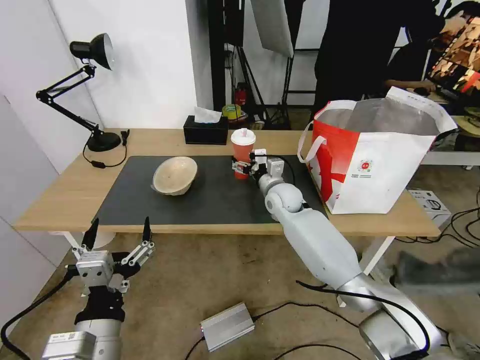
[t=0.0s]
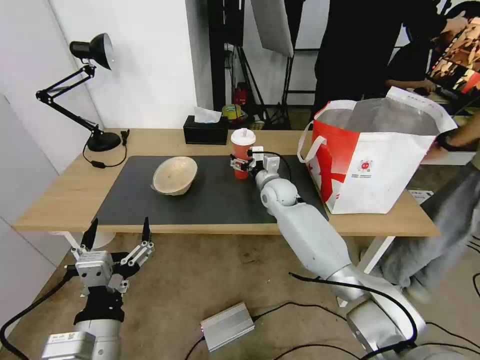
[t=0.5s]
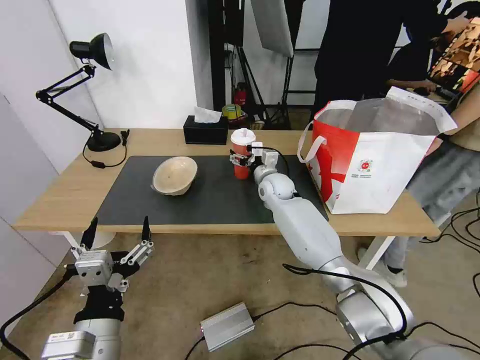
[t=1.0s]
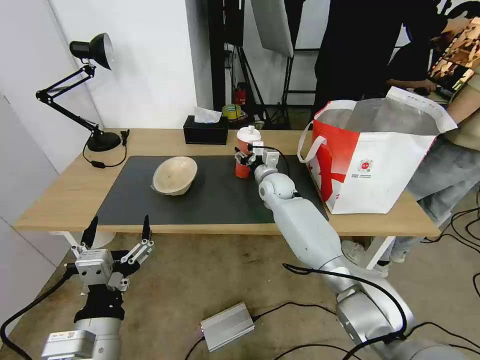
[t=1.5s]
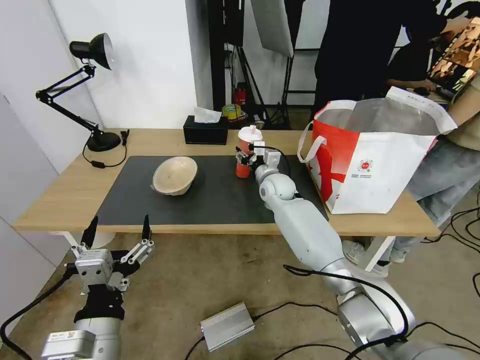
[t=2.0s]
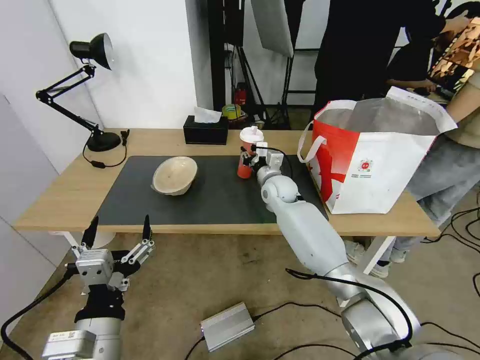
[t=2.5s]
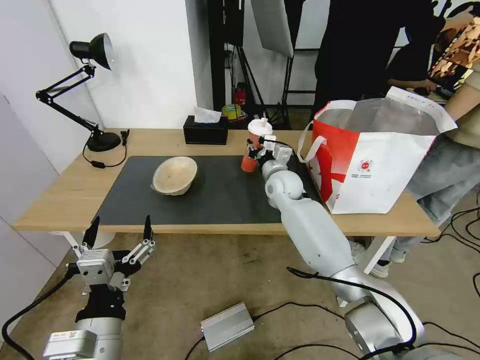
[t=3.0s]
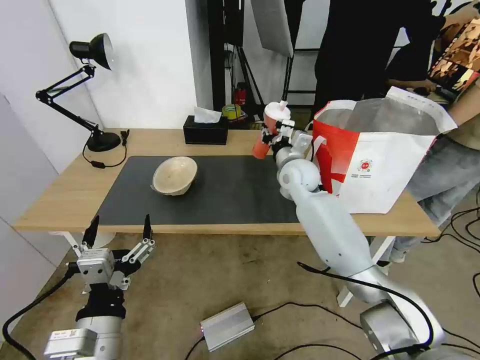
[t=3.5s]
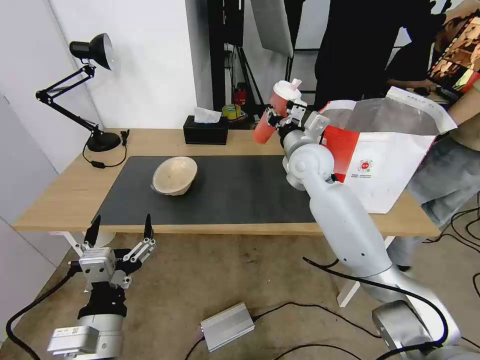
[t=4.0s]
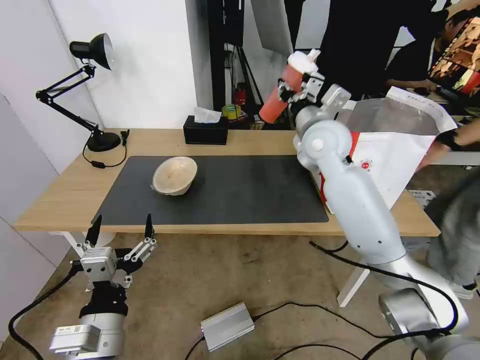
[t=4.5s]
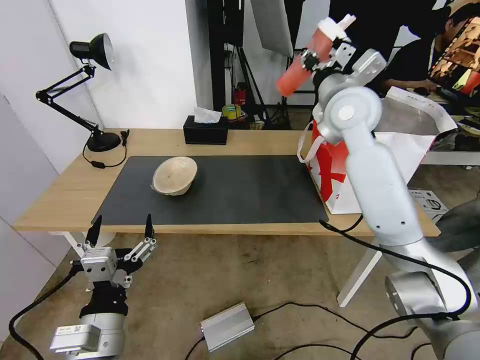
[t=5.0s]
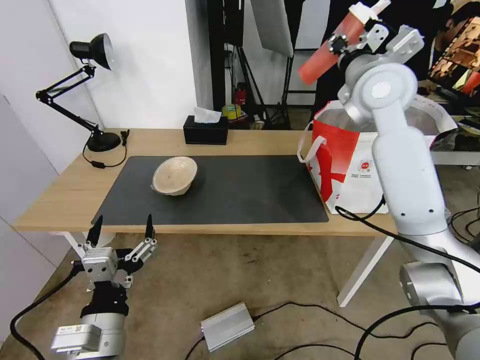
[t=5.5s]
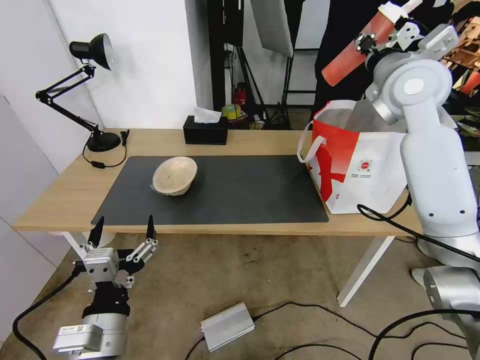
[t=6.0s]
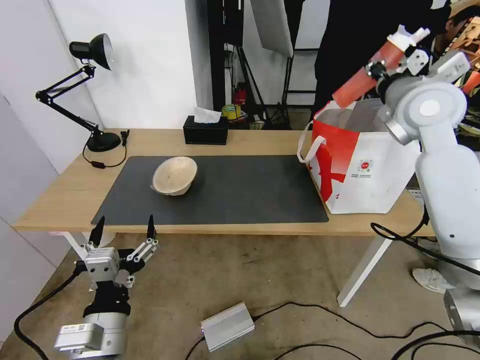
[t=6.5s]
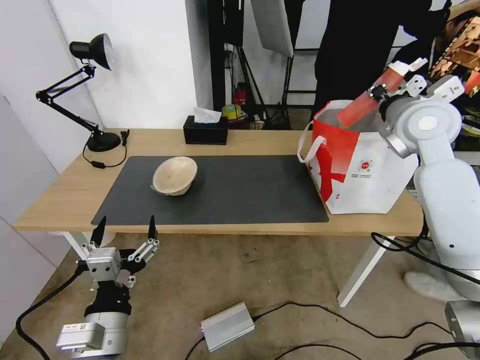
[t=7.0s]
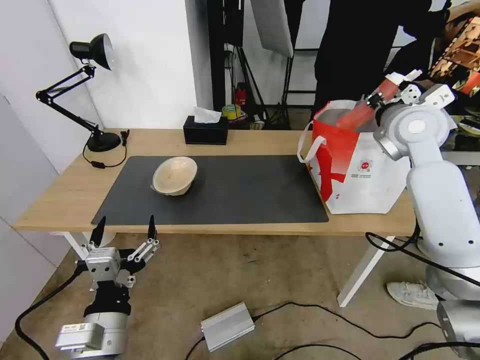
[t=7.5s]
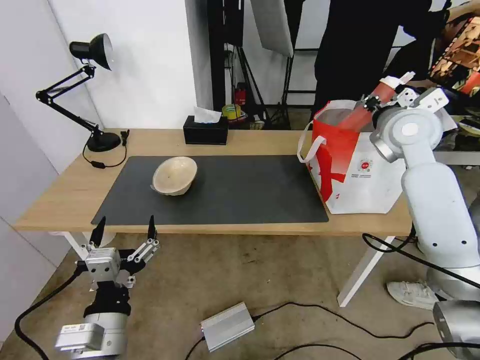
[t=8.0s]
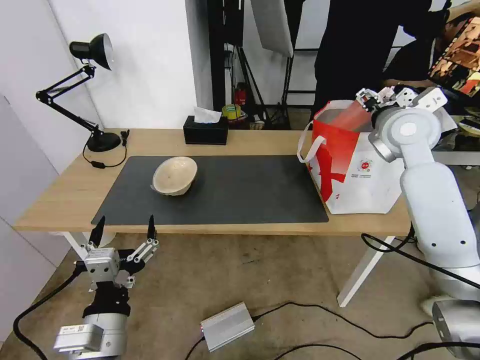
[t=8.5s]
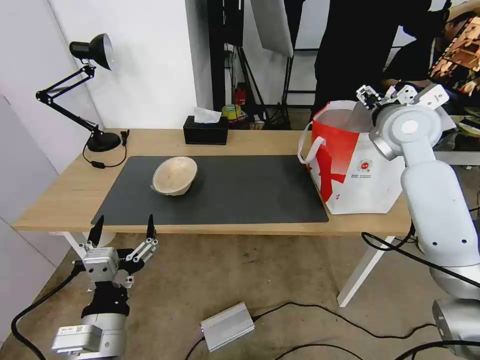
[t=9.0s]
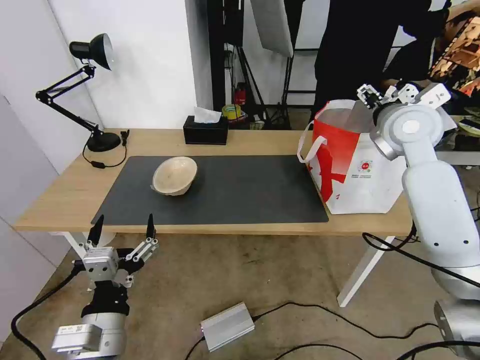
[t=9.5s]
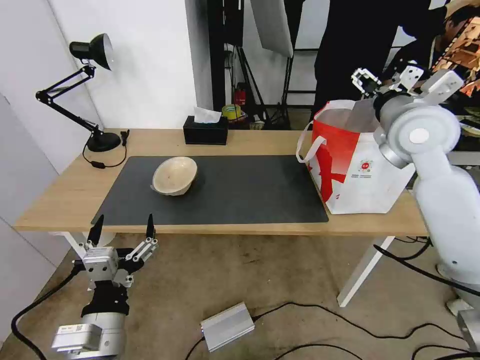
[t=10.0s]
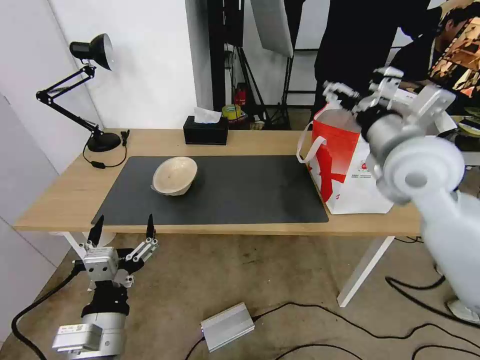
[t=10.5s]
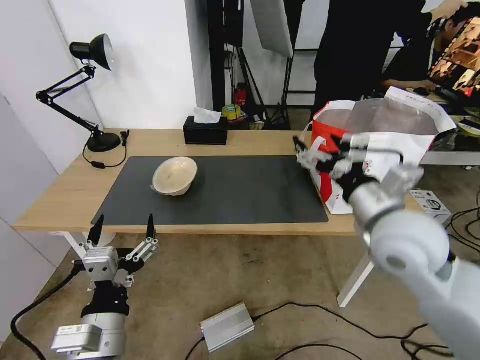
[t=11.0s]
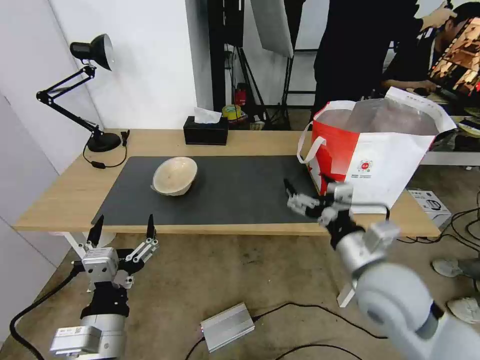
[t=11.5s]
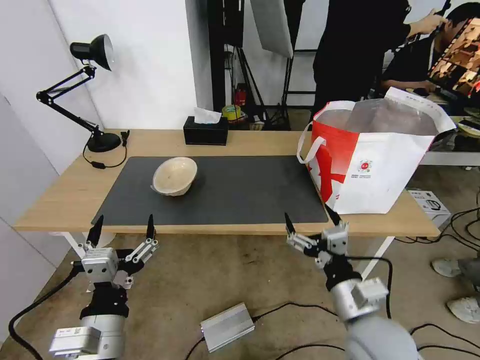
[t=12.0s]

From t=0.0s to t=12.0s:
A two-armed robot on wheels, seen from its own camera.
Task of the whole recording: Pick up the trash from the table and place it into the takeout bag.
From t=0.0s to t=2.0s: The right gripper closes.
From t=2.0s to t=4.0s: The right gripper travels upward and backward by approximately 15 cm.
From t=4.0s to t=6.0s: The right gripper heads upward and to the right, covering some 20 cm.
From t=6.0s to t=8.0s: The right gripper goes approximately 10 cm downward.
From t=8.0s to t=10.0s: The right gripper is displaced backward by roughly 5 cm, and opens up.
From t=10.0s to t=12.0s: The right gripper moves backward and downward, about 35 cm.

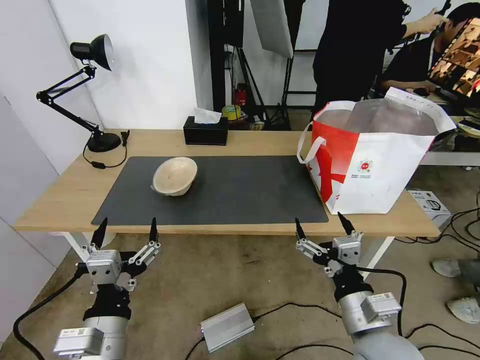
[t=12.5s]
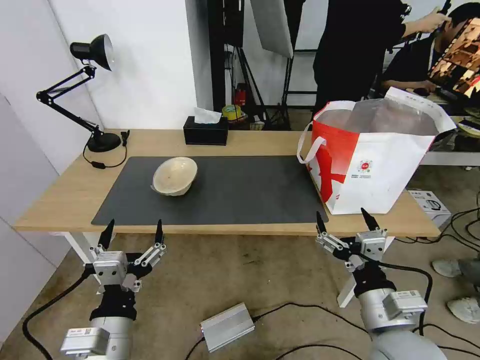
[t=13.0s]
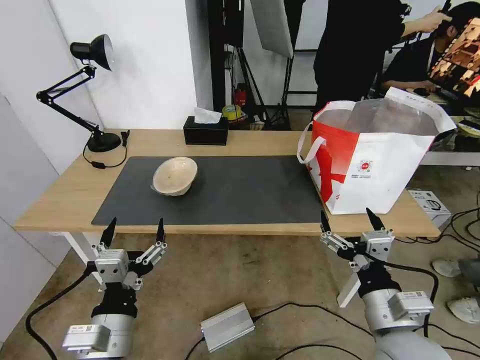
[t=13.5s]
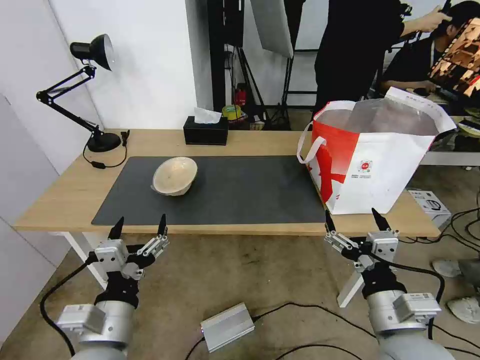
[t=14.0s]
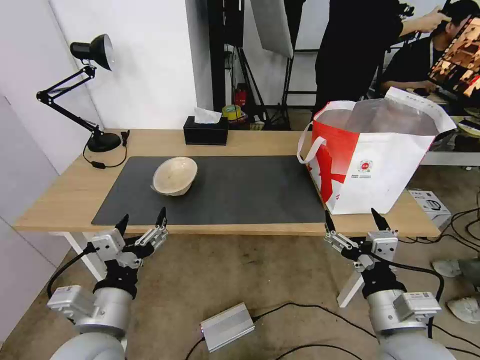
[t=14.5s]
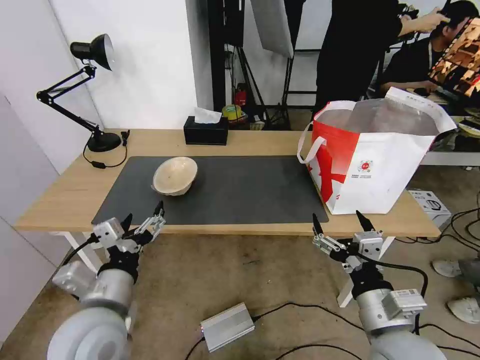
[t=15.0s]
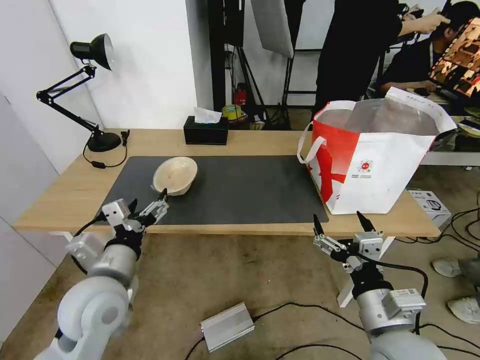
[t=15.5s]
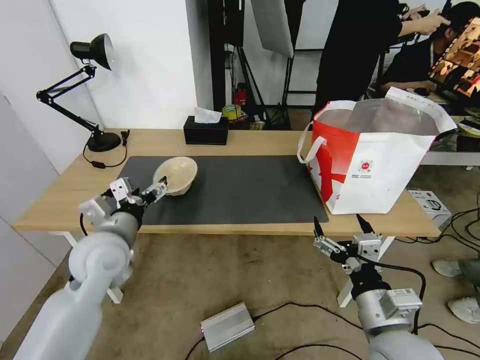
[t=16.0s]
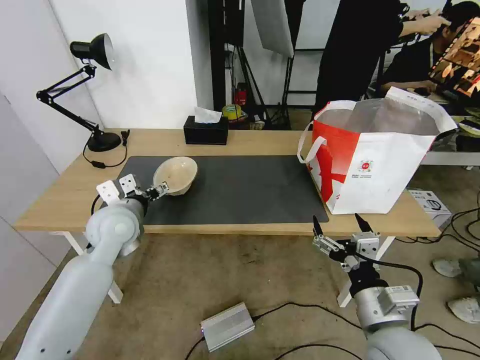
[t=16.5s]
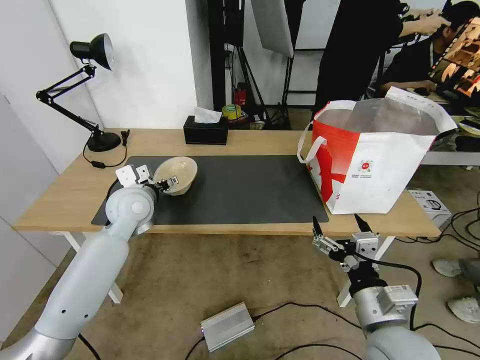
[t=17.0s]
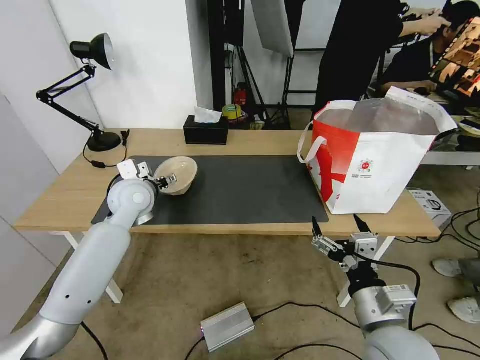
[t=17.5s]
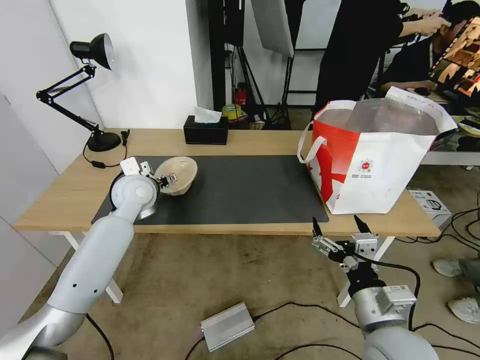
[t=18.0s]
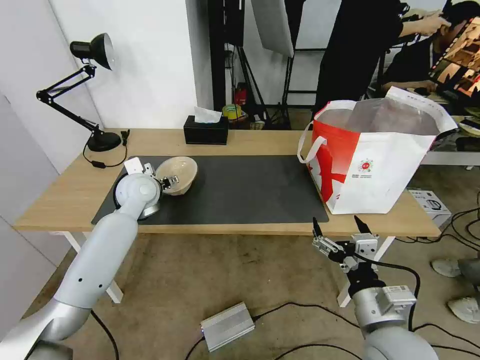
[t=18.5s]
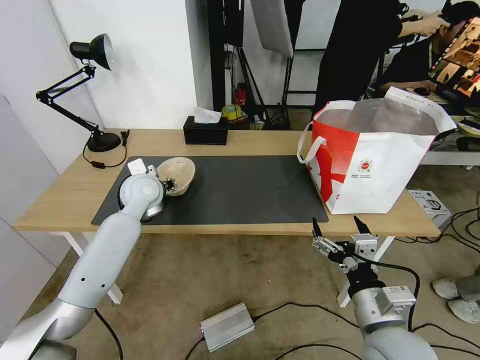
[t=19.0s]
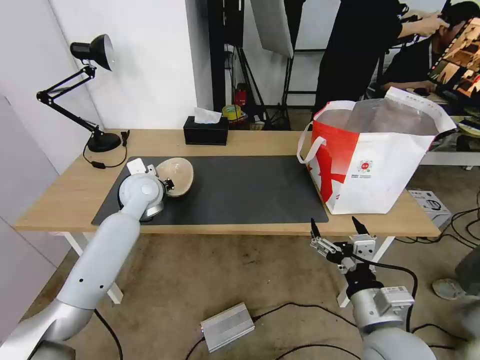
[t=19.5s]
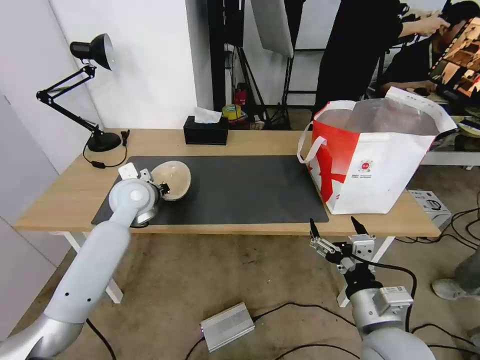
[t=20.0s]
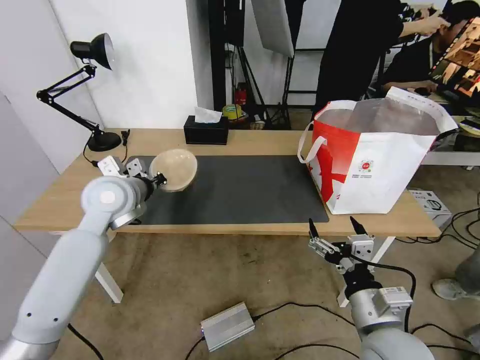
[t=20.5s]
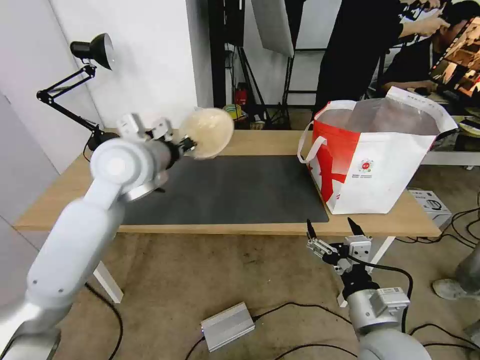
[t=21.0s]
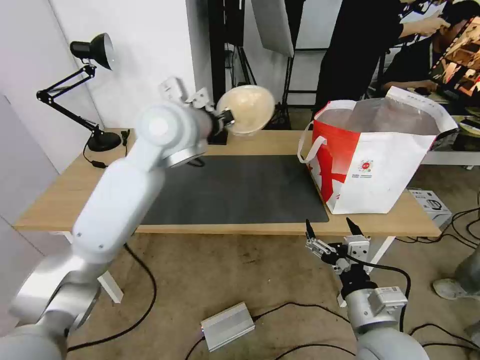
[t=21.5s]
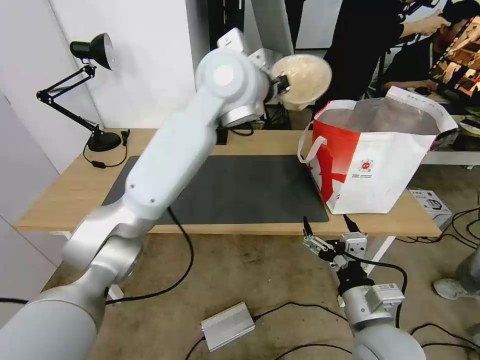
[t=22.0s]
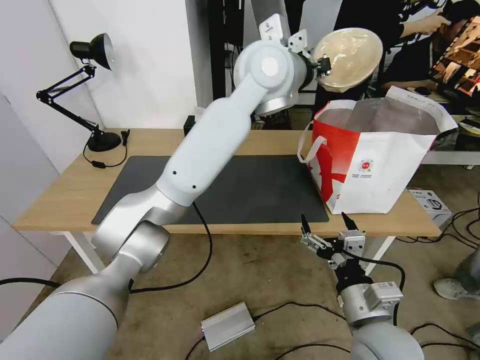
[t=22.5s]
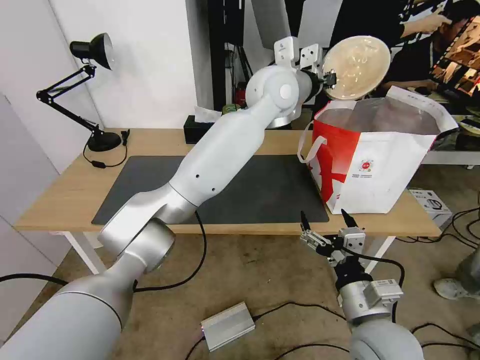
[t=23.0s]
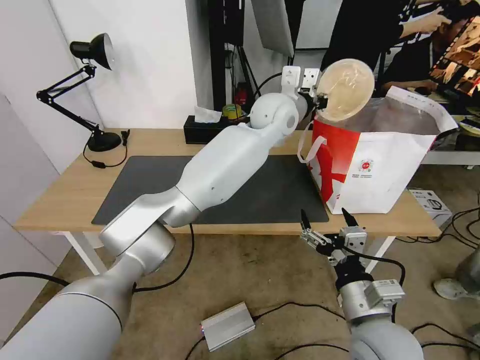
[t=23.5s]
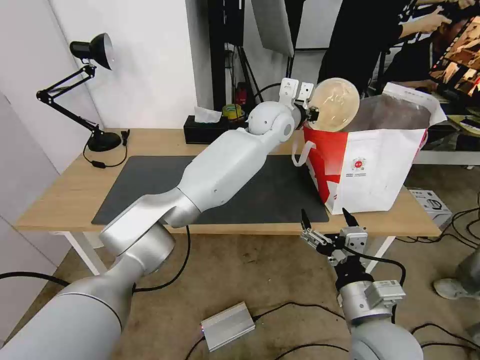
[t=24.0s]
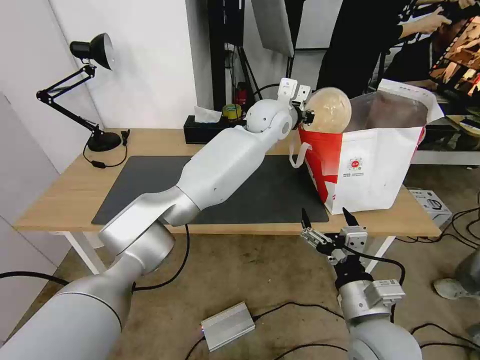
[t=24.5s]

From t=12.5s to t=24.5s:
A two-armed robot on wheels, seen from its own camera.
Task of the whole recording: Pick up the trash from the table and place it into the takeout bag.
From t=14.5s to t=16.5s: The left gripper goes some 25 cm forward.
From t=16.5s to t=18.5s: The left gripper heads forward, covering roughly 10 cm.
From t=18.5s to t=20.5s: The left gripper shifts some 10 cm backward and upward, and closes up.
From t=20.5s to t=22.5s: The left gripper goes about 35 cm to the right and upward.
From t=22.5s to t=24.5s: The left gripper heads downward and forward, covering approximately 15 cm.

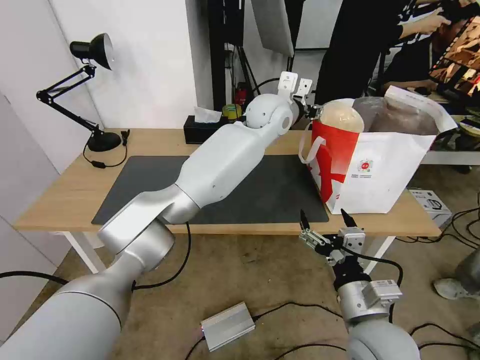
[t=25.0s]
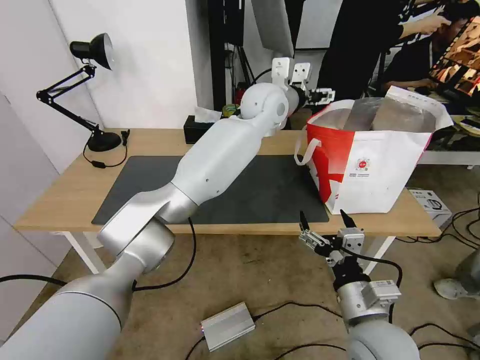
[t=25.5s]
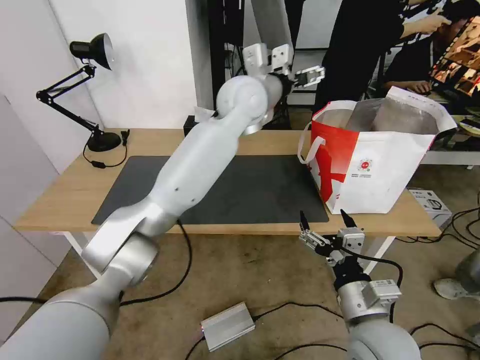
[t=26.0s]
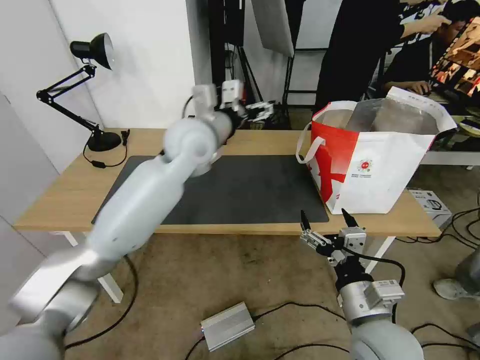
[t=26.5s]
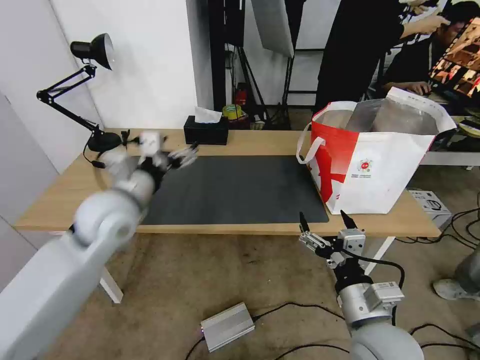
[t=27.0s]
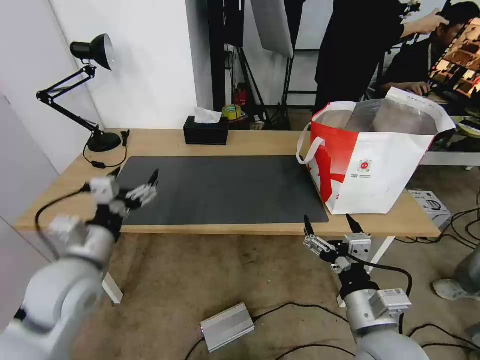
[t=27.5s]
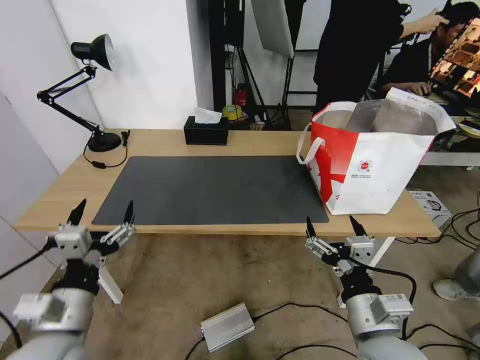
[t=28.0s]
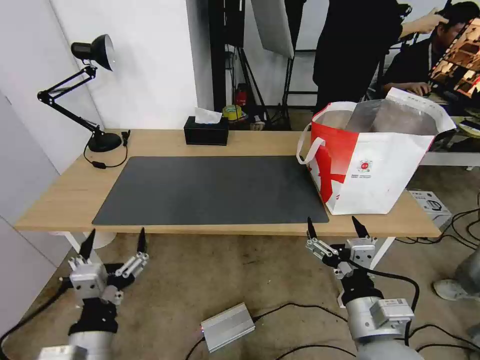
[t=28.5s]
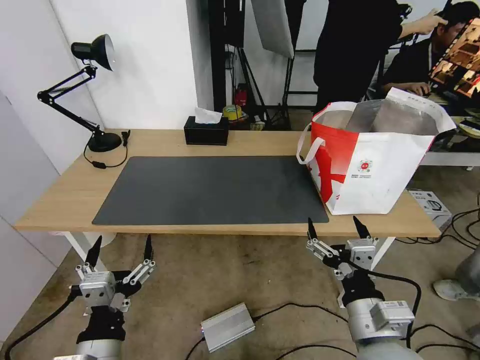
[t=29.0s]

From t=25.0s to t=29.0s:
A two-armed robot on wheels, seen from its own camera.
Task of the whole recording: Pick up the trash from the table and place it into the takeout bag.
From t=25.0s to t=27.0s: The left gripper is displaced to the left and backward by about 35 cm, and opens up.
From t=27.0s to t=29.0s: The left gripper heads backward and downward, covering approximately 30 cm.
